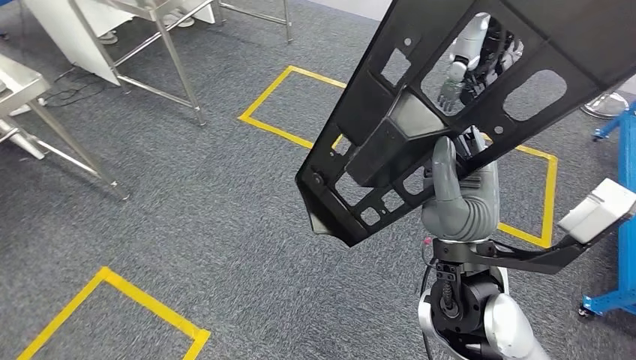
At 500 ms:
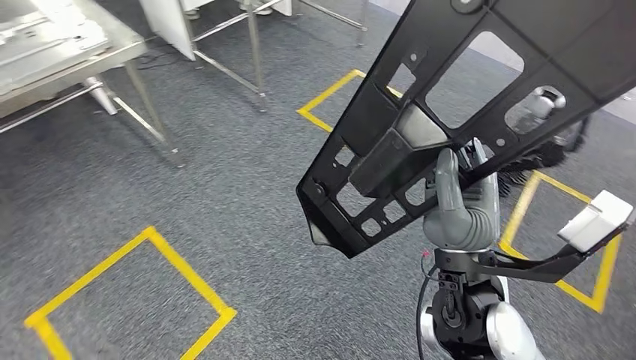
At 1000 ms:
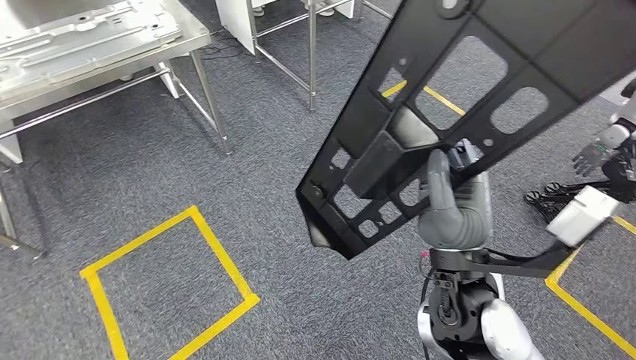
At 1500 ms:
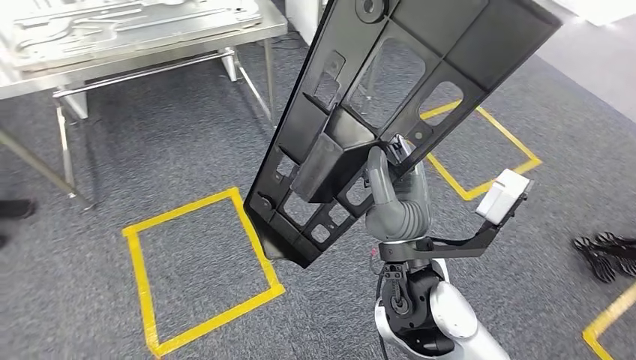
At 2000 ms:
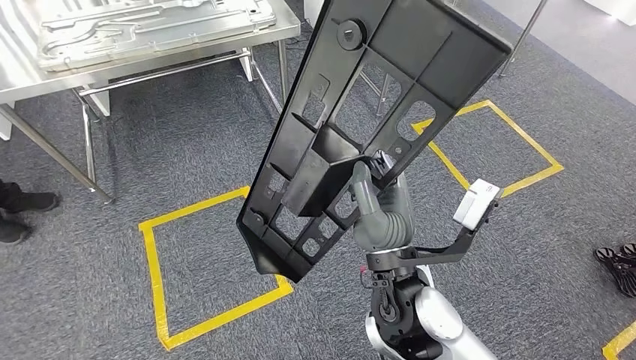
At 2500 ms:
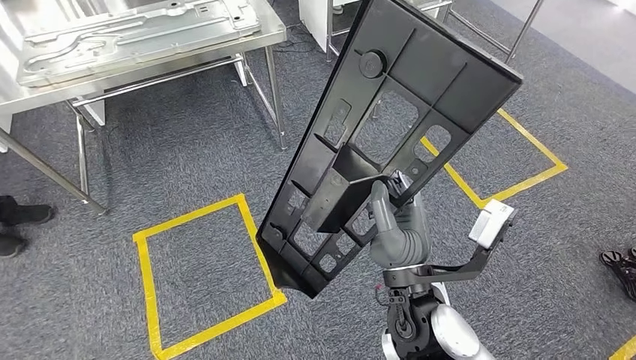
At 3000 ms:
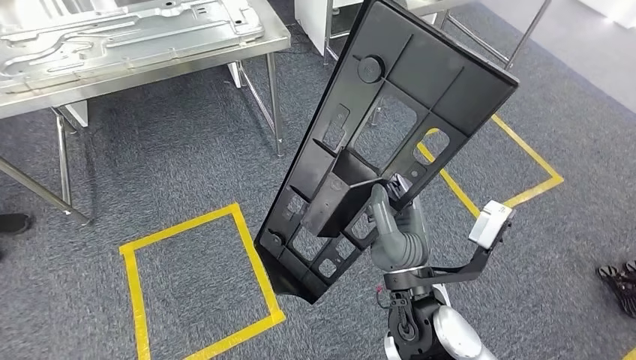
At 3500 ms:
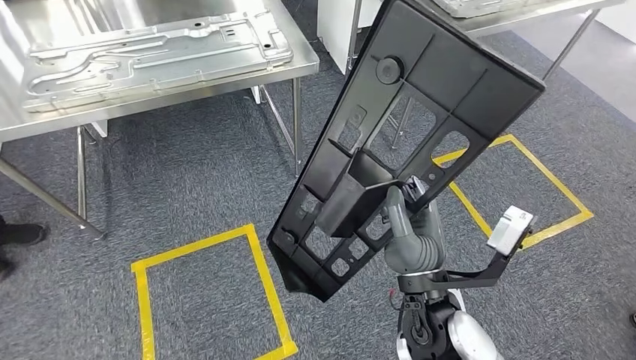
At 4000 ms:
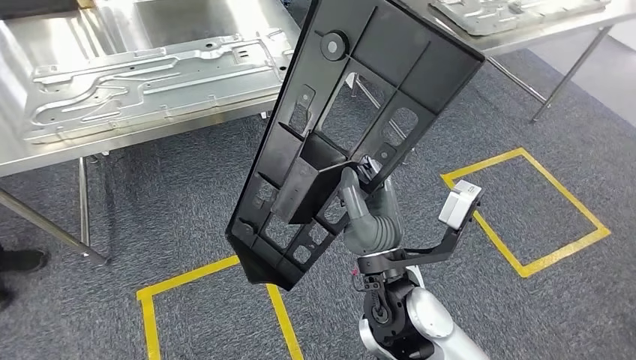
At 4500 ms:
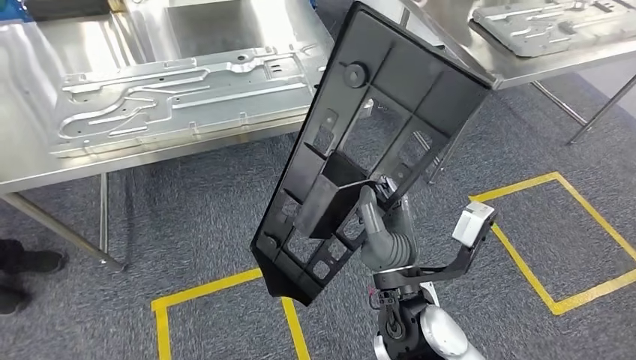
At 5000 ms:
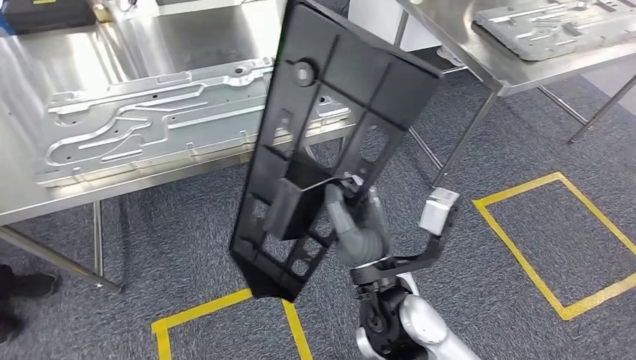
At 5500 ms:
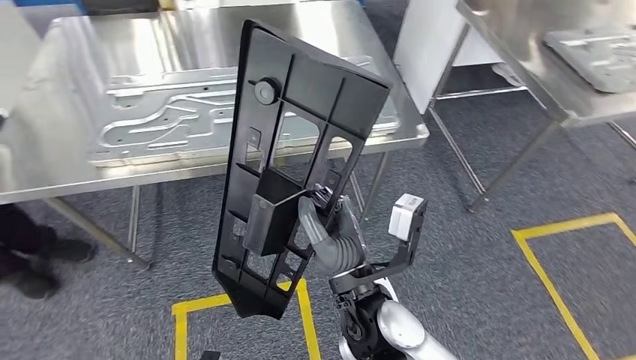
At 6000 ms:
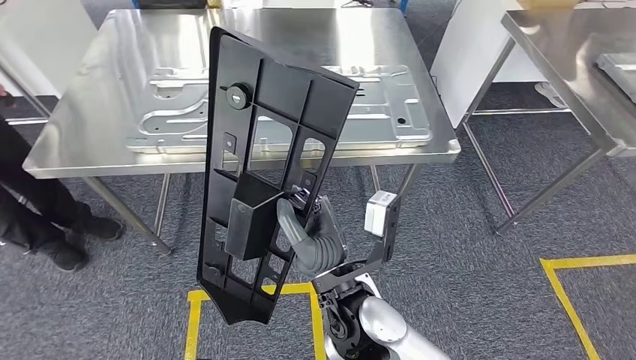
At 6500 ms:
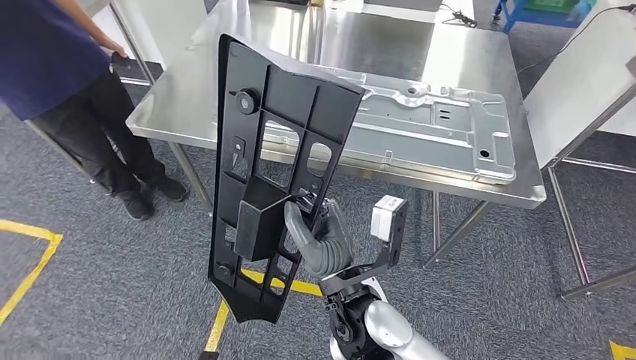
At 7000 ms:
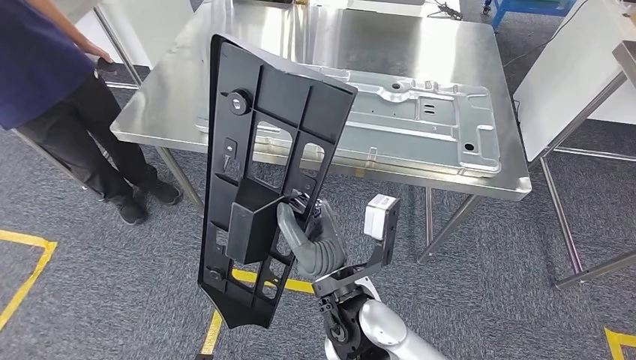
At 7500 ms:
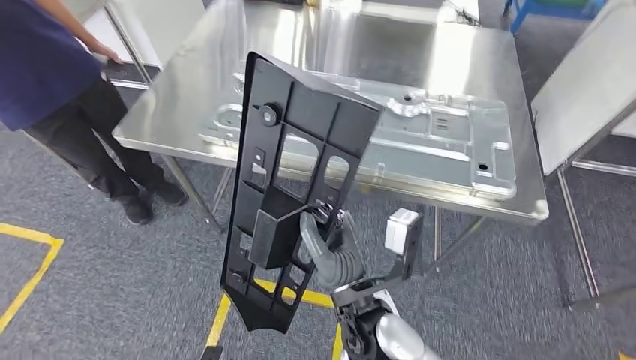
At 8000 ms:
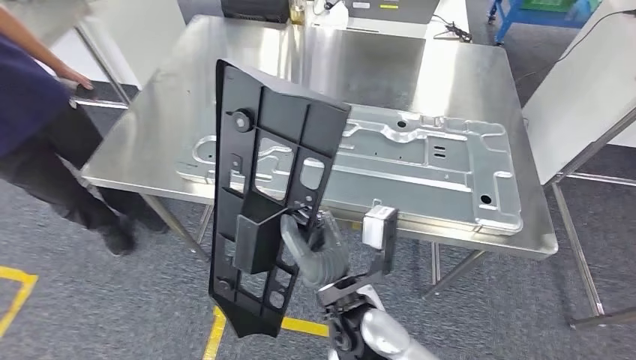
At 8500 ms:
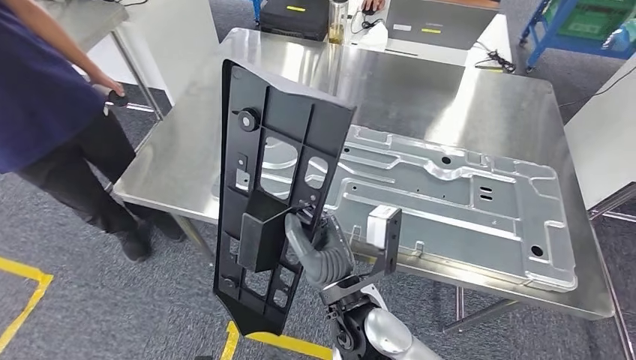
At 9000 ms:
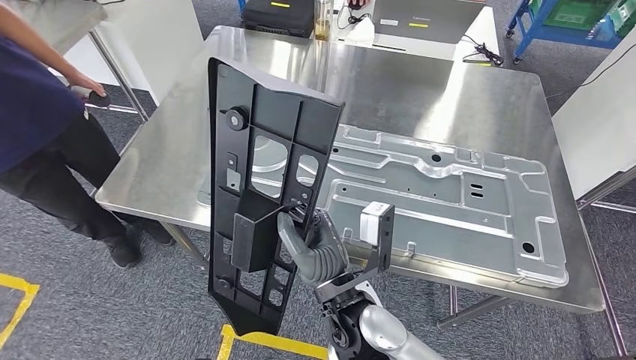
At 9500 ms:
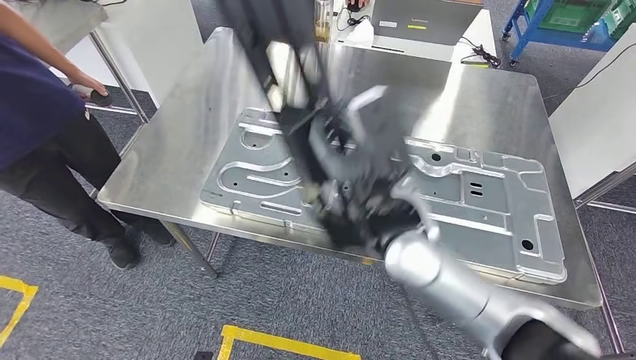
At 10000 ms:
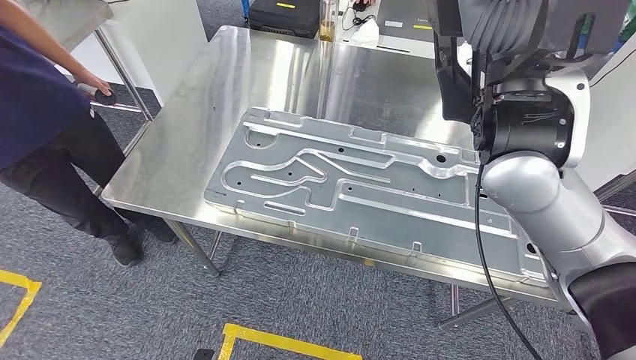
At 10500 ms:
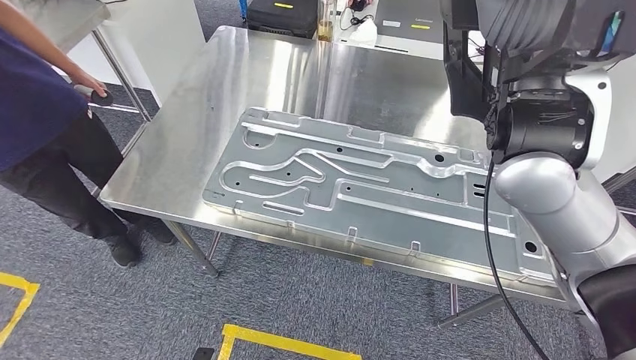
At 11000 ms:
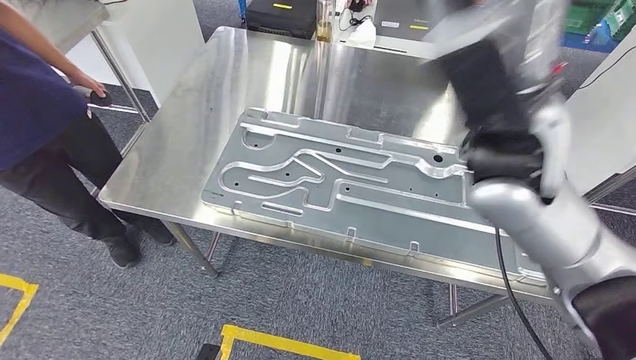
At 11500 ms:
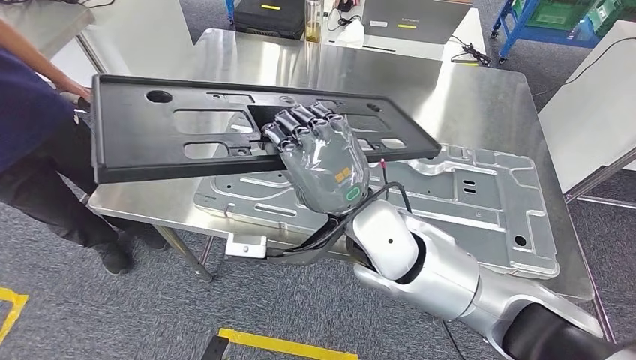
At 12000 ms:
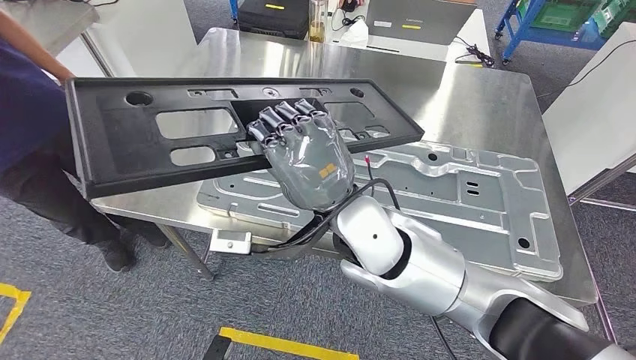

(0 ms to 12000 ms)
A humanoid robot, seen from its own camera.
Step, 0 ms - 7000 ms: Move the large material to the workbench.

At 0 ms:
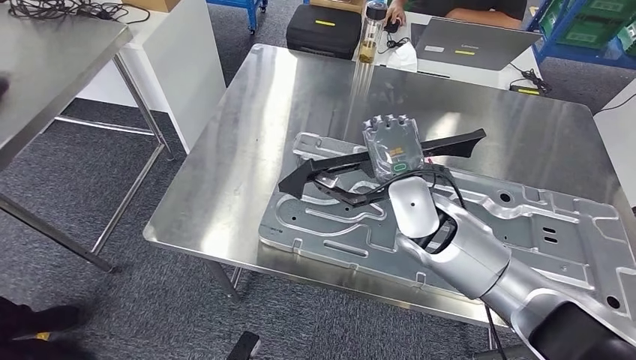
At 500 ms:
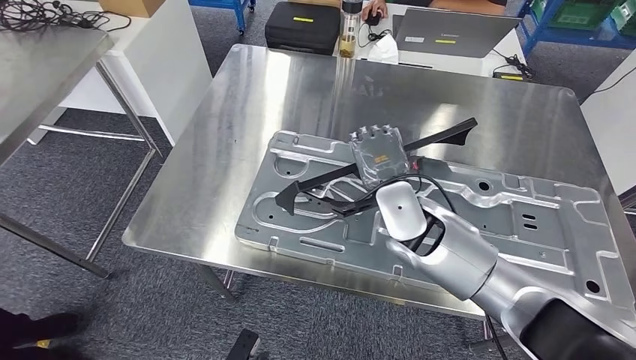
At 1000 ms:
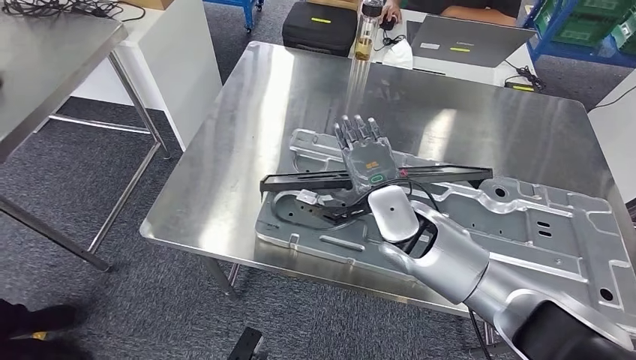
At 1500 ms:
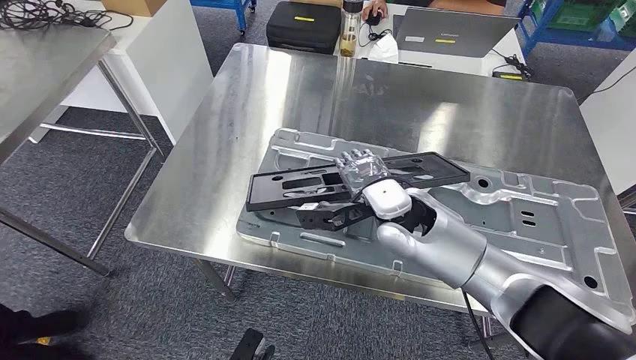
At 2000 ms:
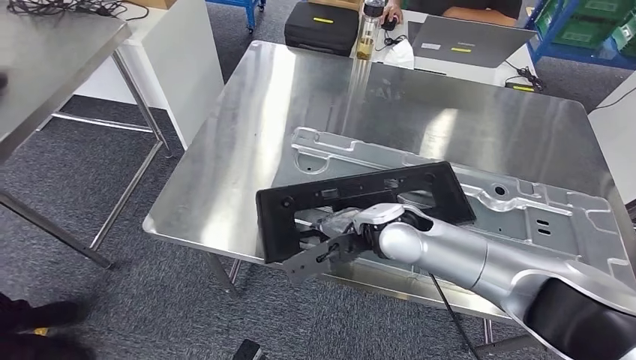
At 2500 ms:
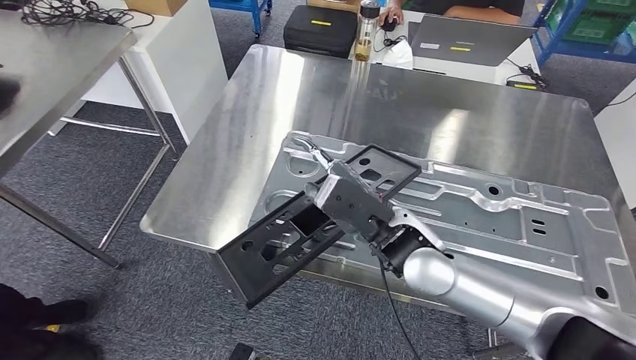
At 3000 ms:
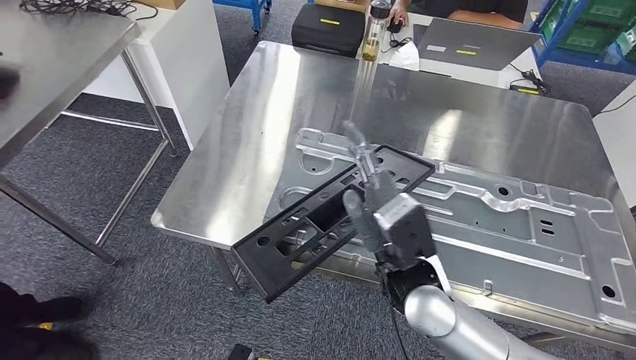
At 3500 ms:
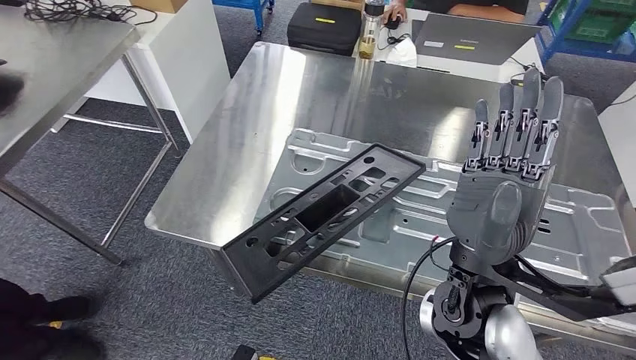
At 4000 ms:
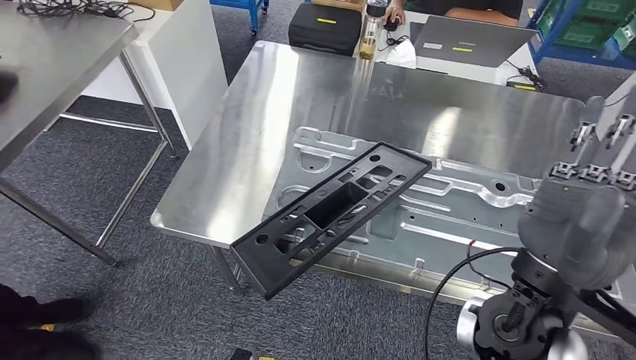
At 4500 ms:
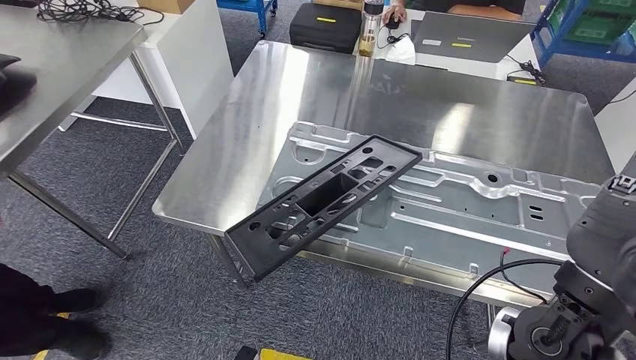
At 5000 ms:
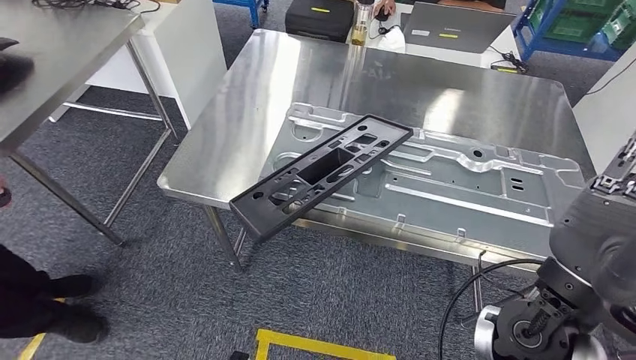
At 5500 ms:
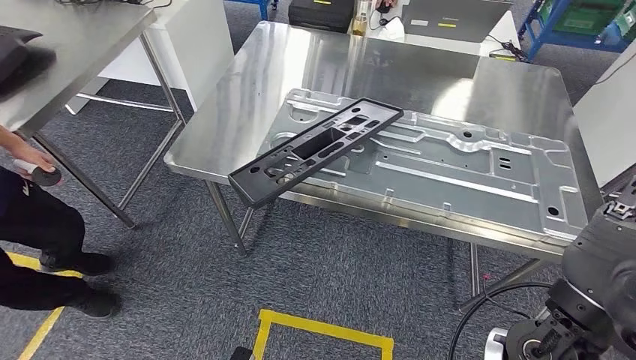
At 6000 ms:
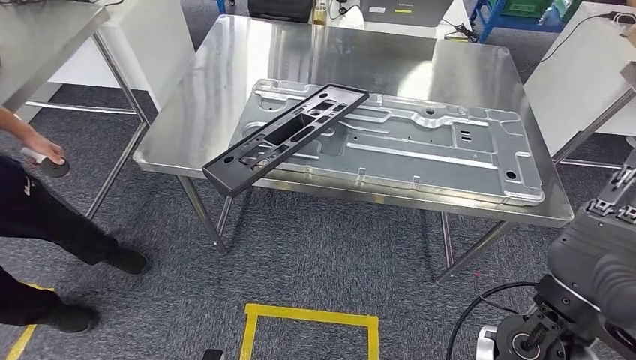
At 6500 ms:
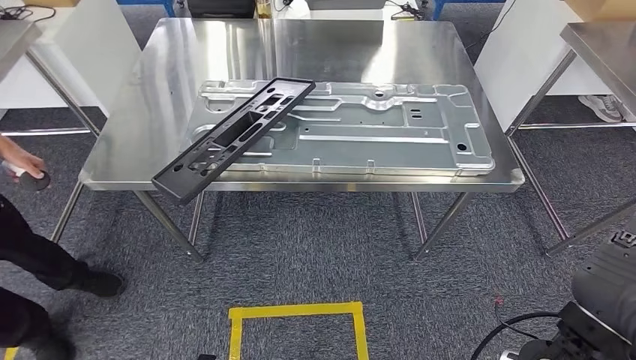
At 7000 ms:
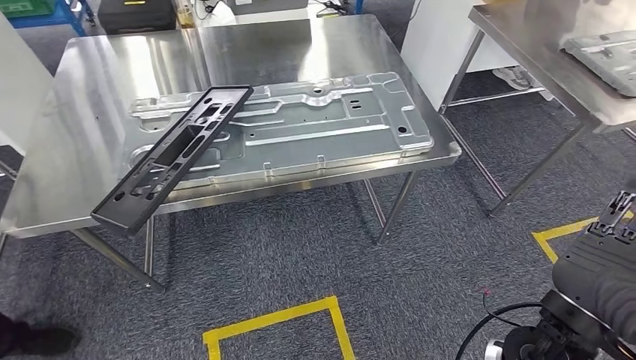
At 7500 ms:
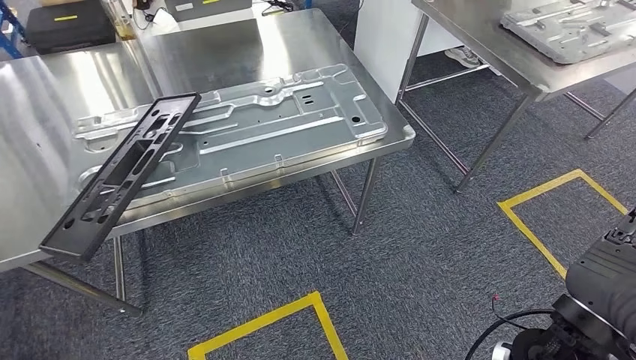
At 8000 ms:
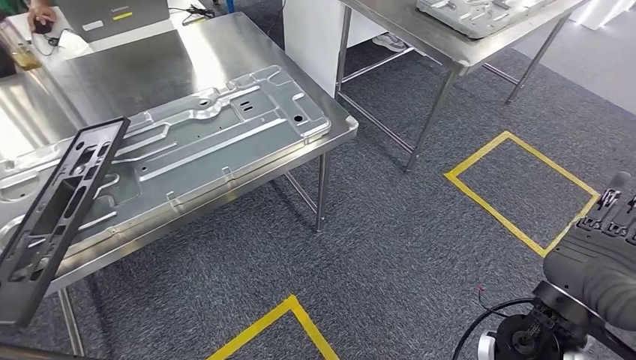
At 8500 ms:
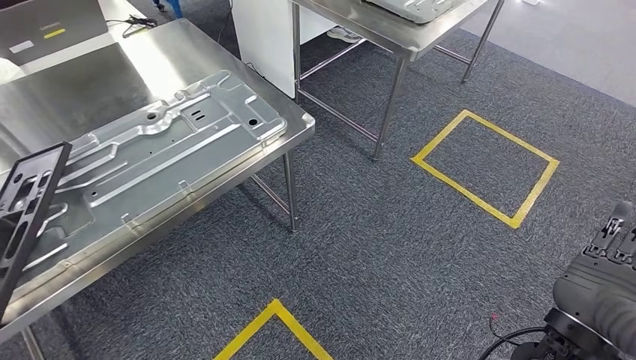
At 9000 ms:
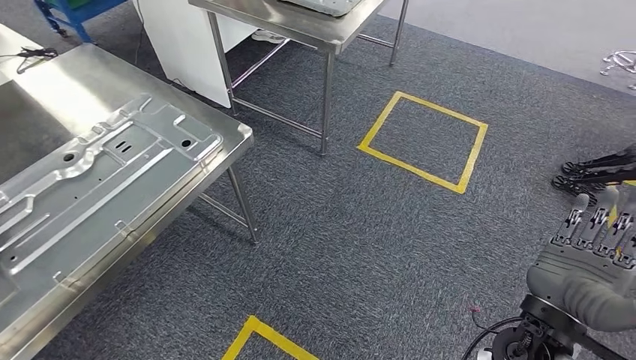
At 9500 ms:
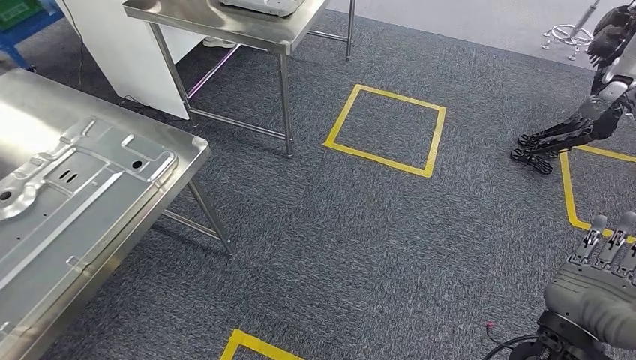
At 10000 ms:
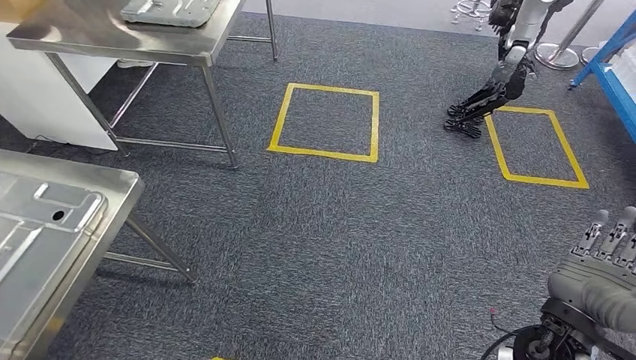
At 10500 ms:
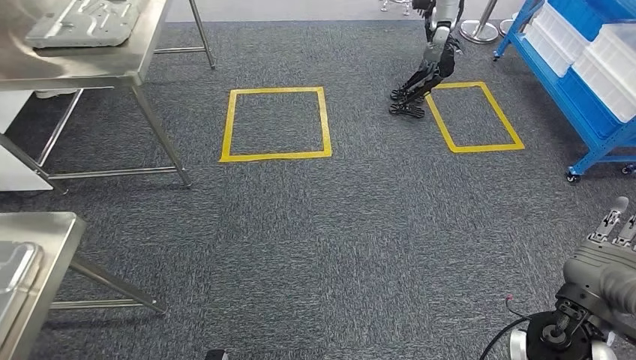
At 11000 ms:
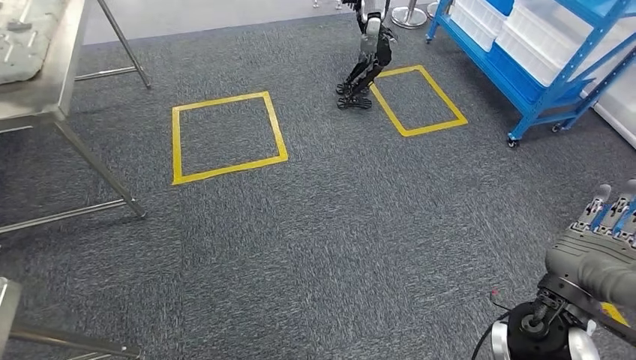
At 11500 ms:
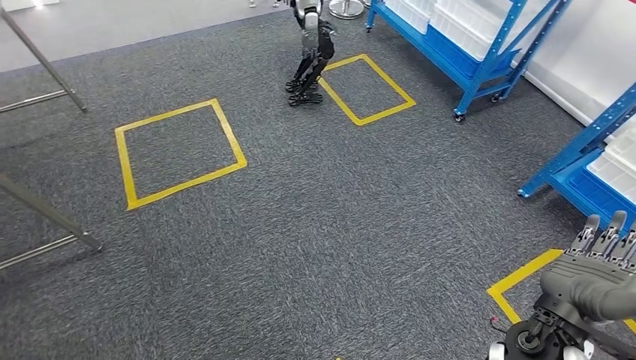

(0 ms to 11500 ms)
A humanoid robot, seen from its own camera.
Step, 0 ms - 6000 ms: Insert the large material into the corresponding slot on the workbench.
